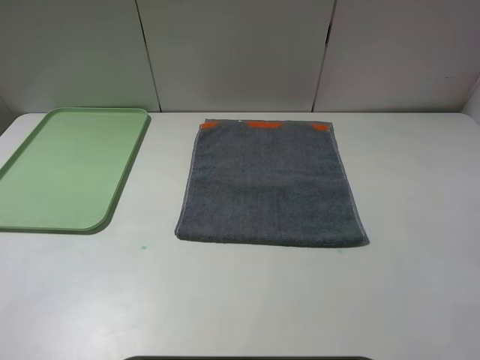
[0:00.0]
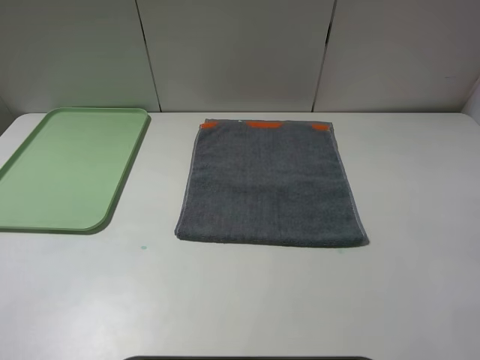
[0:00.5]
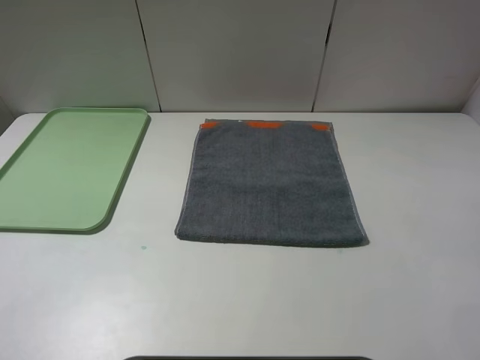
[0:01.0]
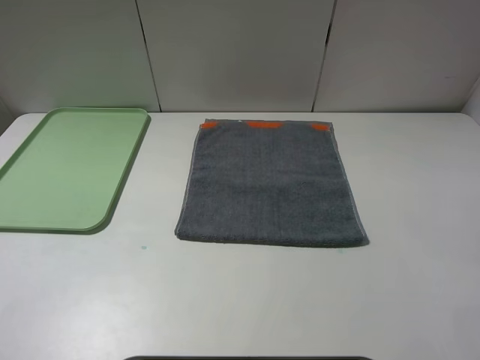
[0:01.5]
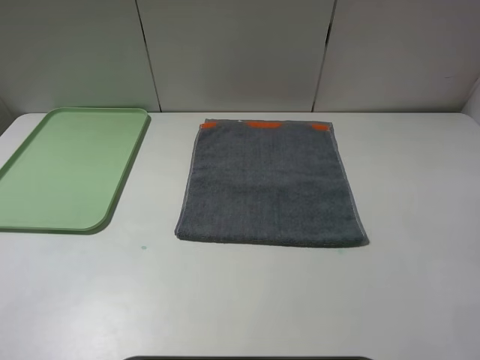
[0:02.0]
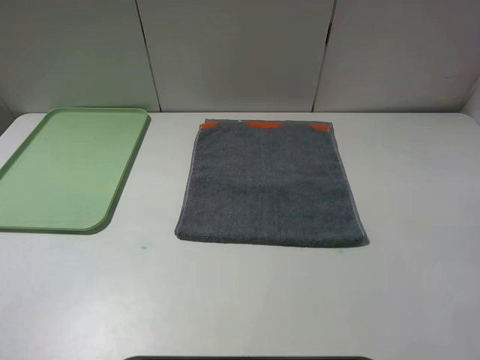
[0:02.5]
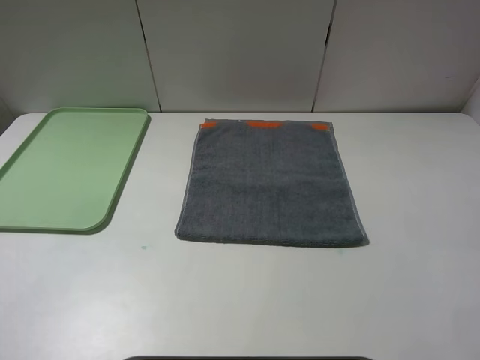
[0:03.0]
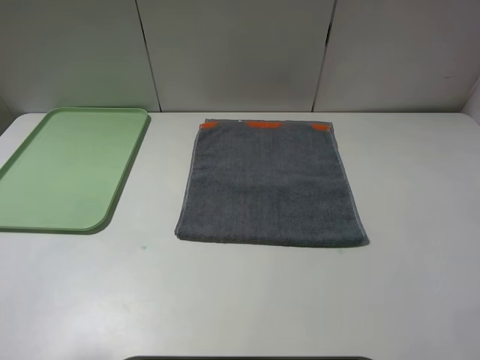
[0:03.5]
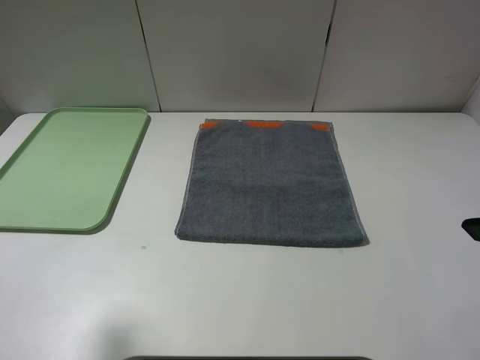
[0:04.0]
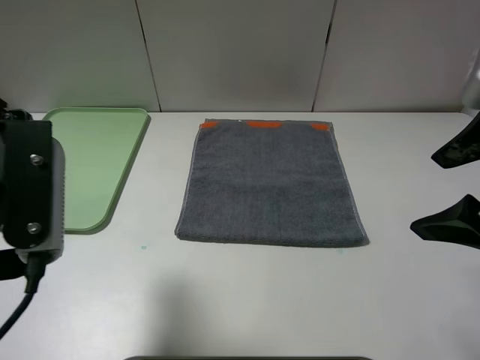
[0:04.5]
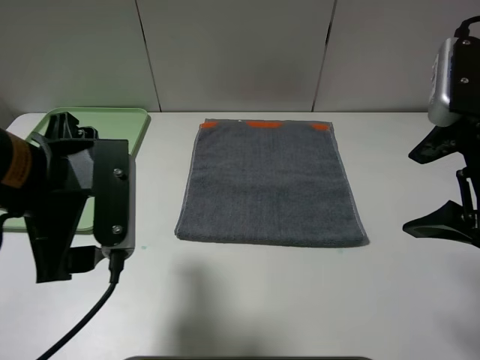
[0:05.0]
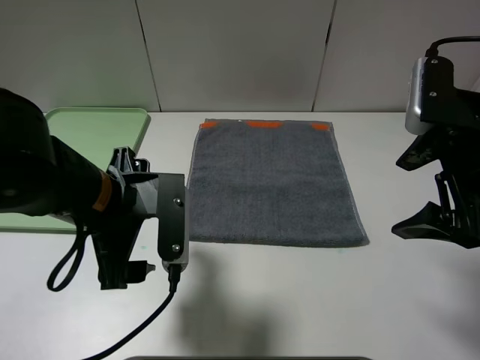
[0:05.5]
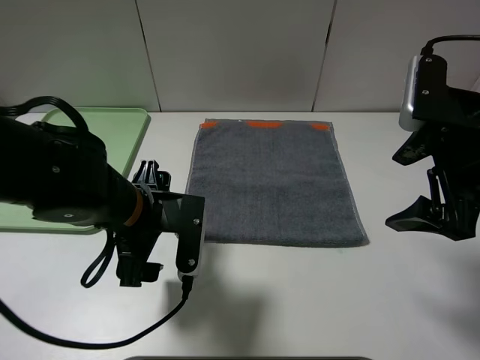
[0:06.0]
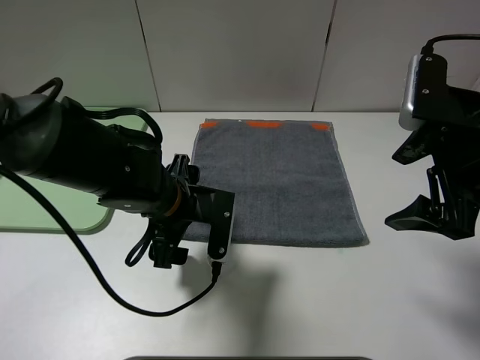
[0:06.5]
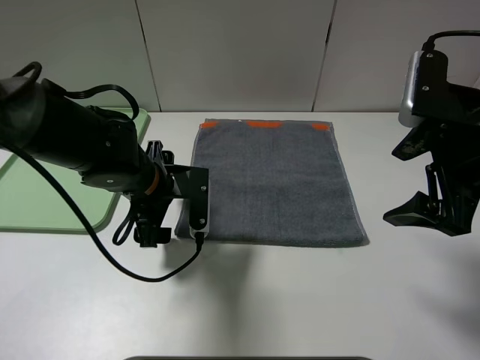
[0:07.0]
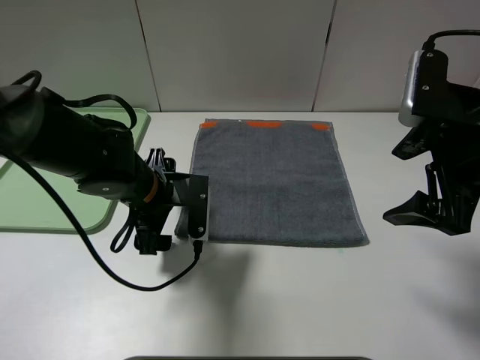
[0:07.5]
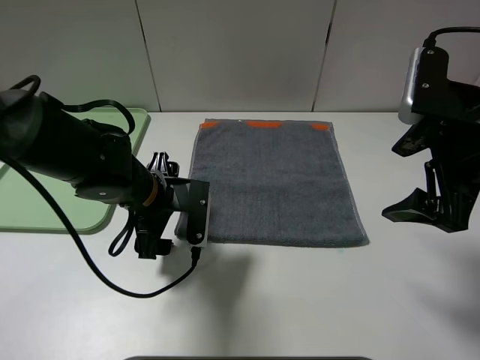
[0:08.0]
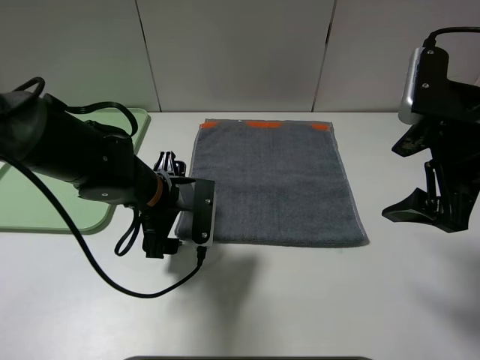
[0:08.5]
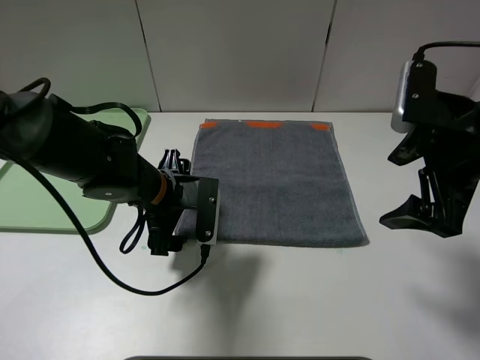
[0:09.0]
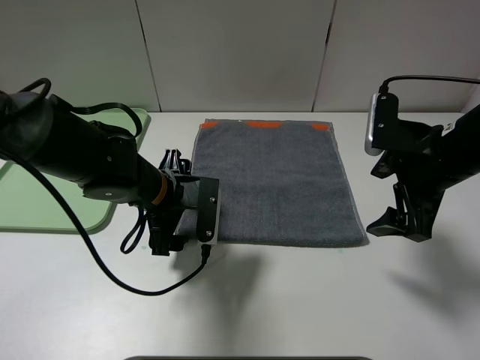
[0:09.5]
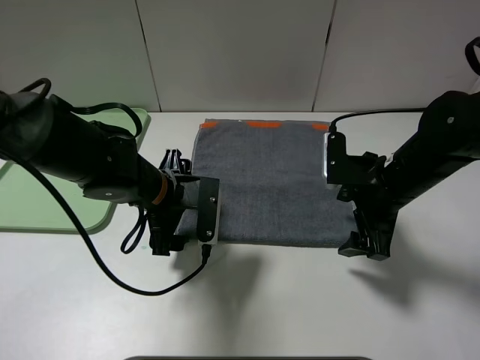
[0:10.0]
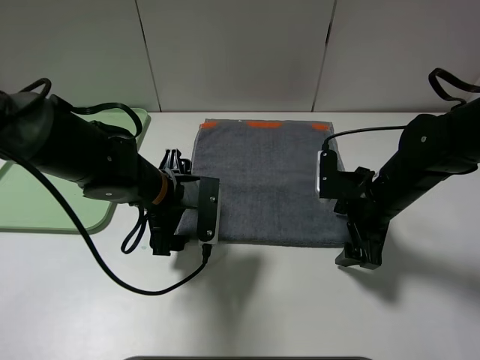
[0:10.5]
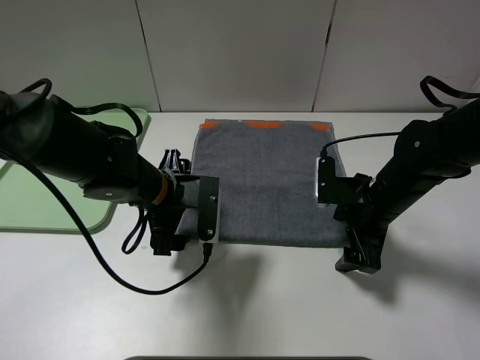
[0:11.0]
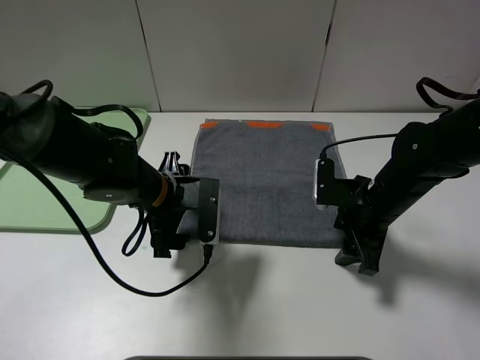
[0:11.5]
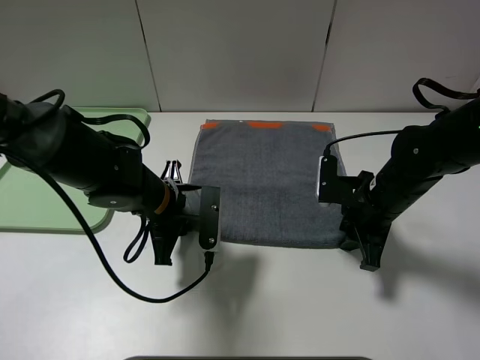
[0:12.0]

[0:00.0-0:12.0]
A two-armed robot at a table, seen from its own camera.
0:00.0 to 0:02.0: Both grippers stay put.
0:02.0 to 0:04.0: The left gripper shifts some 10 cm forward.
0:04.0 to 0:06.0: The right gripper shifts roughly 10 cm forward and downward. The left gripper goes roughly 25 cm downward, to the right and forward.
0:06.0 to 0:08.0: The left gripper heads forward, covering roughly 5 cm.
0:08.0 to 0:10.0: The right gripper goes approximately 10 cm downward.
0:10.0 to 0:12.0: The left gripper closes. The right gripper closes.

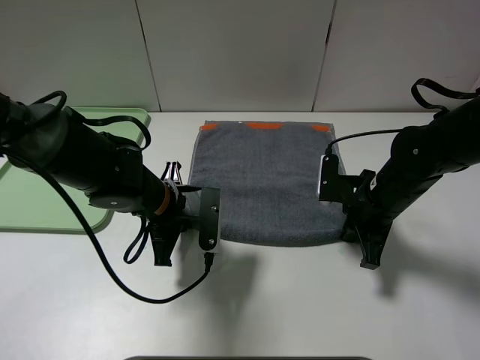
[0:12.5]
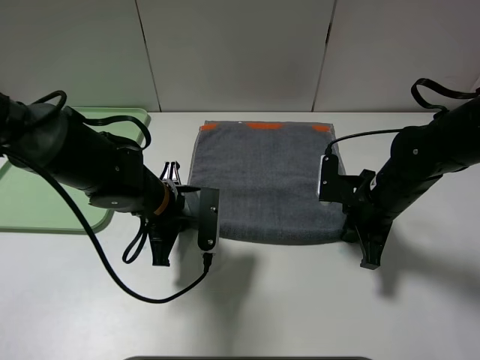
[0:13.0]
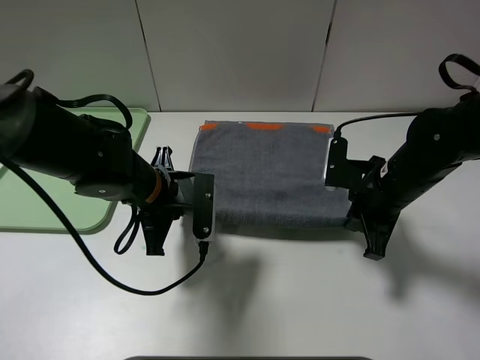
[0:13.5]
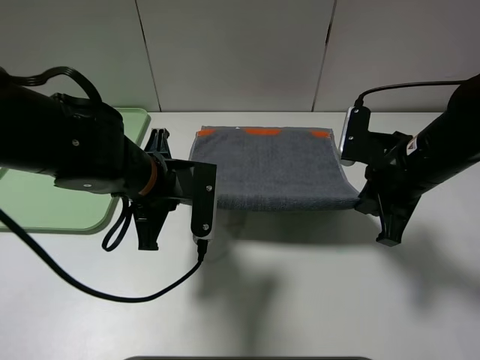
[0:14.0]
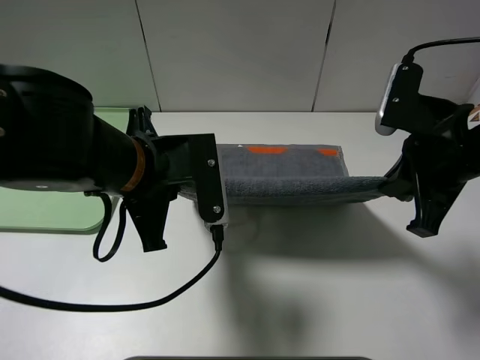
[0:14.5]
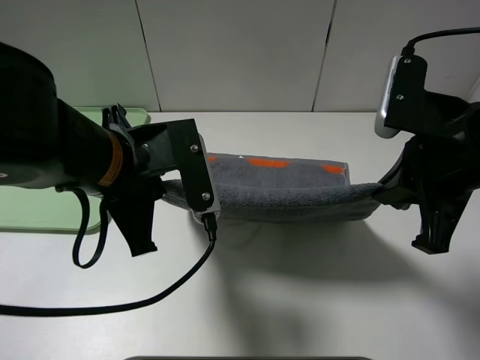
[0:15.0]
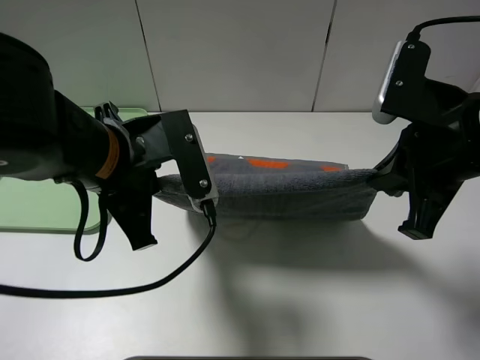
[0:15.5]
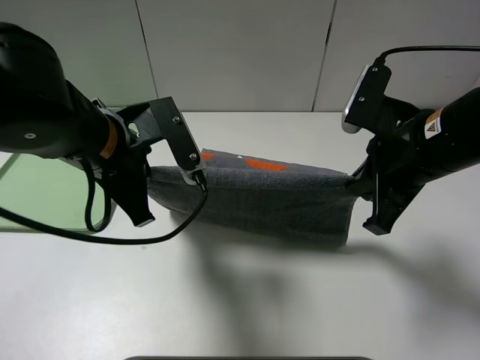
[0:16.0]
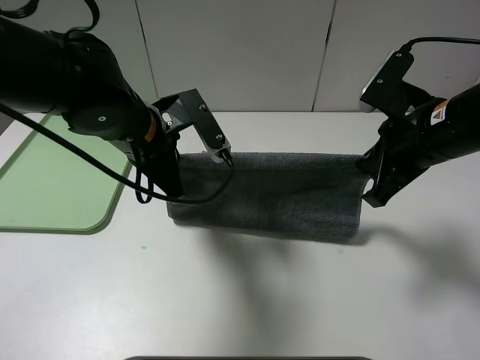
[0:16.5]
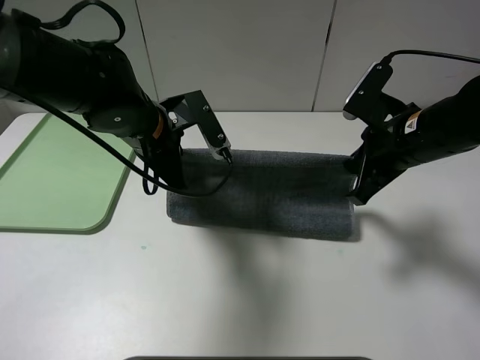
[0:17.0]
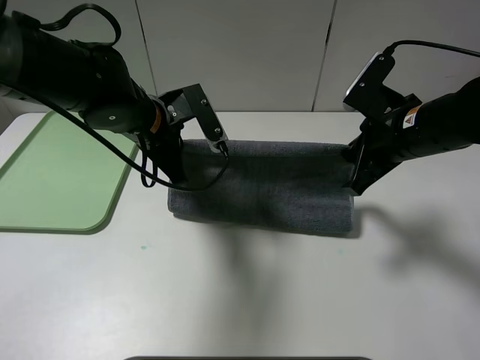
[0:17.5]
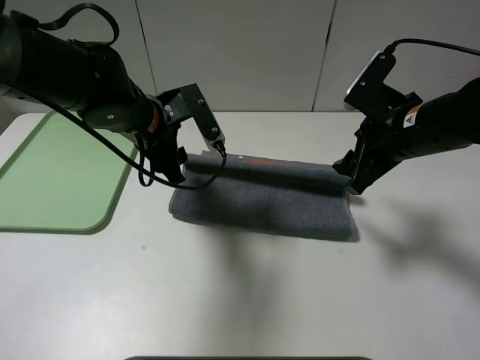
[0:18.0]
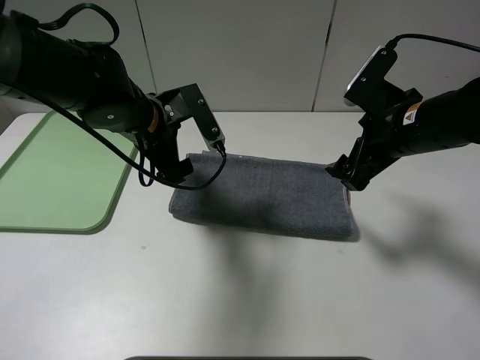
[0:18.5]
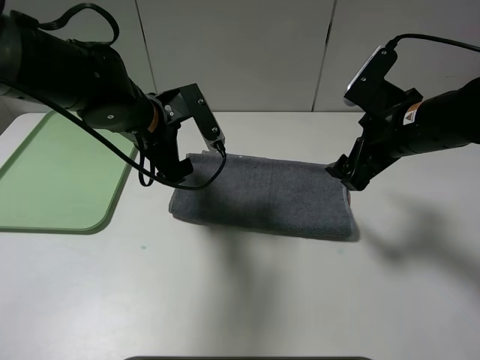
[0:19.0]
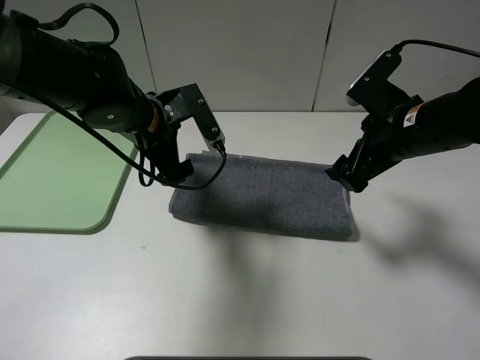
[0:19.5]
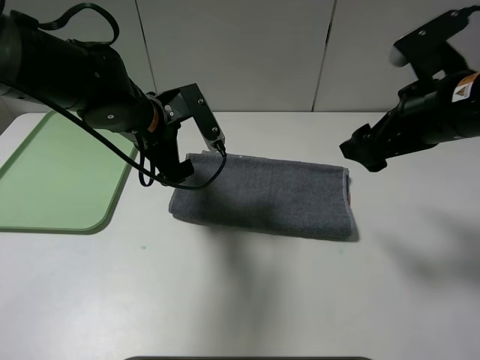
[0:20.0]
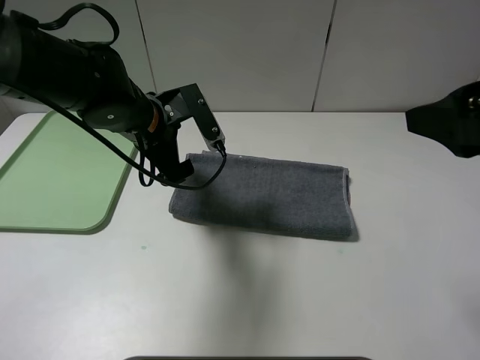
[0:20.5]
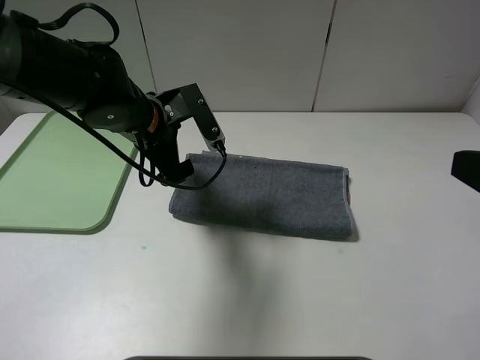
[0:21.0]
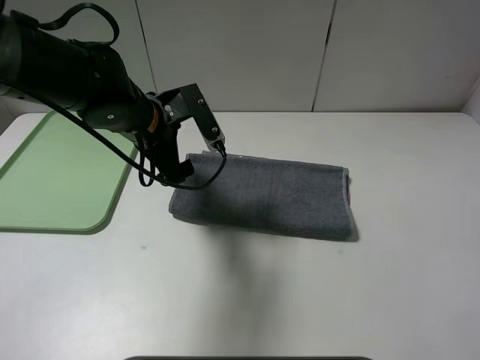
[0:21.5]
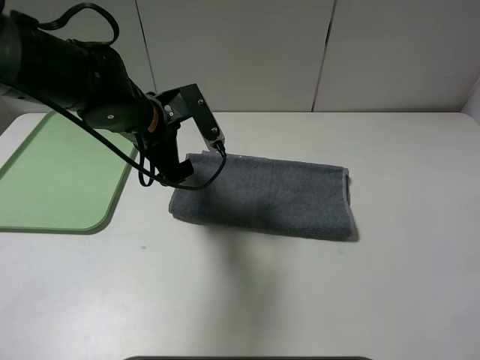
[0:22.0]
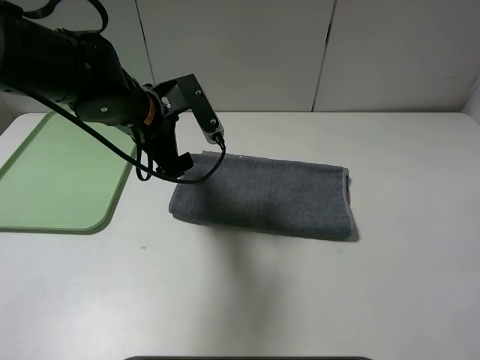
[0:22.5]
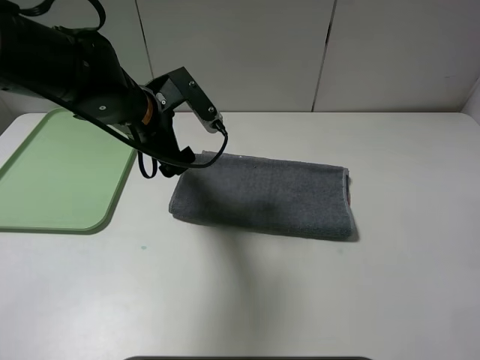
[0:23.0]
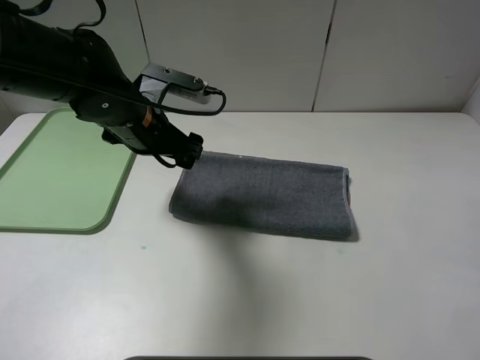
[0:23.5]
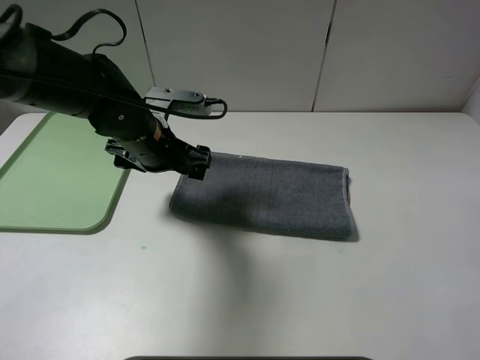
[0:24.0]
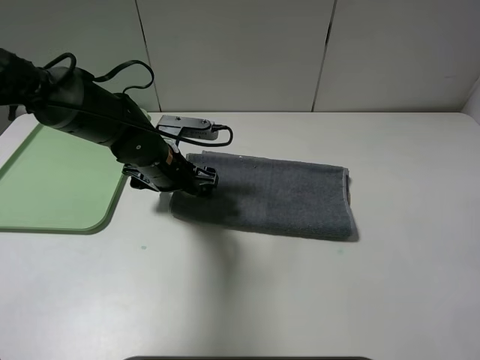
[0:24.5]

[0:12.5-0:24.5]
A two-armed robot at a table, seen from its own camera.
Step, 0:12.5 to 0:18.0: Fold the grey towel upwards.
0:12.5 to 0:14.5: The right gripper travels upward by about 15 cm. The left gripper shifts about 15 cm upward and backward.
0:14.5 to 0:16.5: The left gripper goes some 10 cm forward.
0:16.5 to 0:18.5: The left gripper opens, while the right gripper opens.
0:18.5 to 0:20.5: The right gripper moves backward and upward, some 20 cm.
0:20.5 to 0:22.5: The right gripper moves backward, about 15 cm.
0:22.5 to 0:24.5: The left gripper shifts some 10 cm downward.

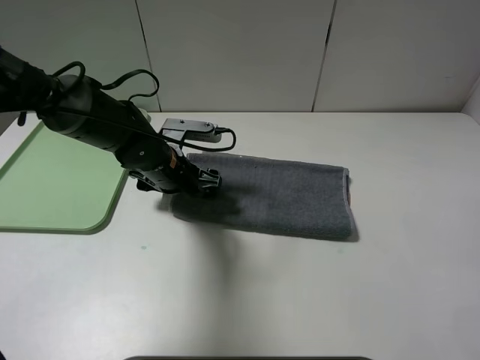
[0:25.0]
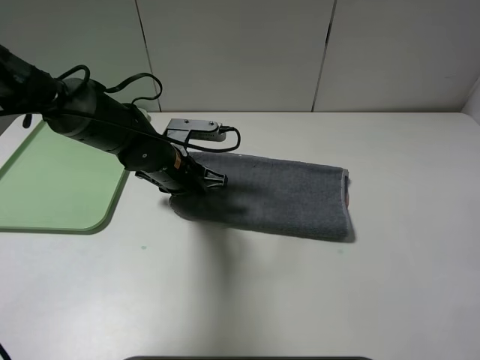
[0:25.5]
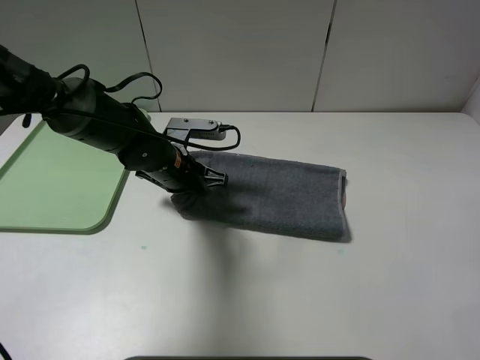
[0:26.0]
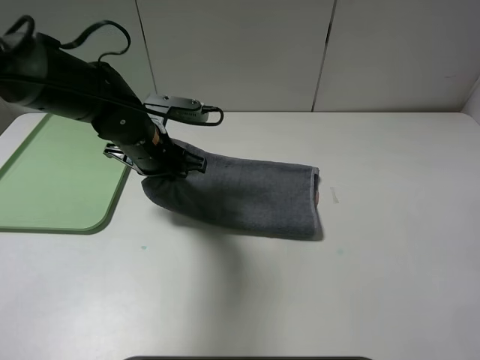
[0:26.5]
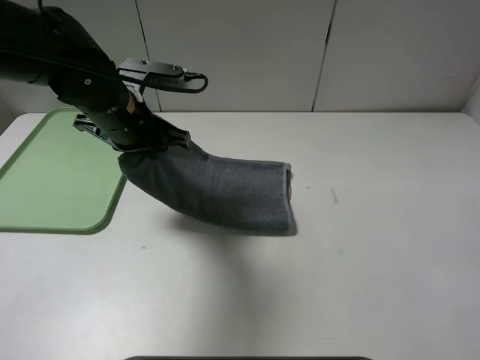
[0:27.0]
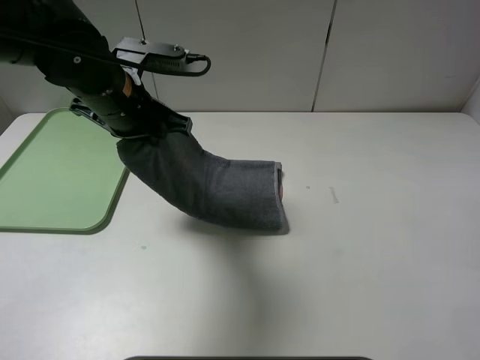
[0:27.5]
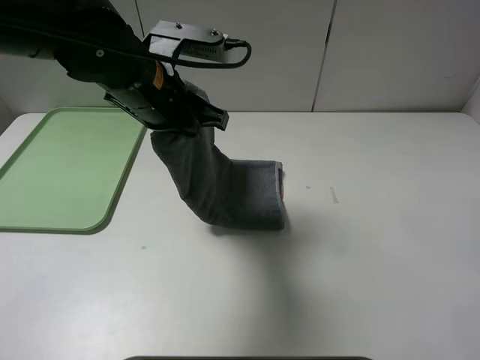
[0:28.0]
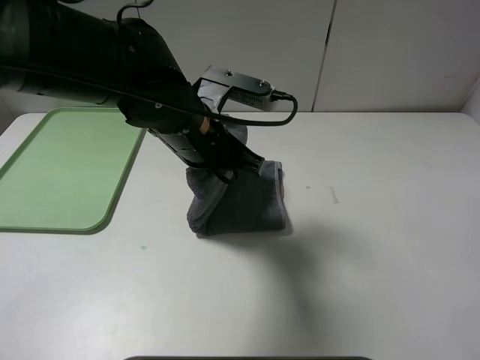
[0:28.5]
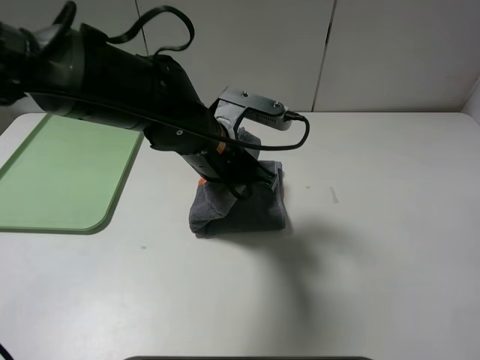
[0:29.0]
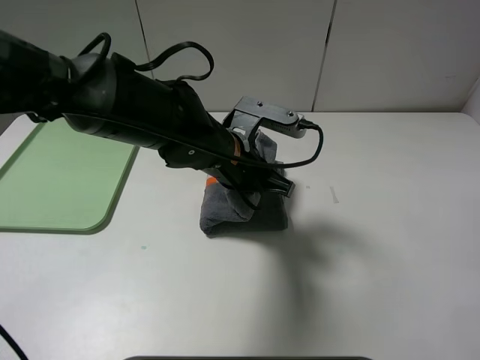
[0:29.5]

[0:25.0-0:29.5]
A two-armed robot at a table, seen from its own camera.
0:25.0 to 0:27.0: The left gripper shifts approximately 10 cm upward, and closes.
0:27.0 to 0:29.5: The left gripper is displaced to the right by about 15 cm.
